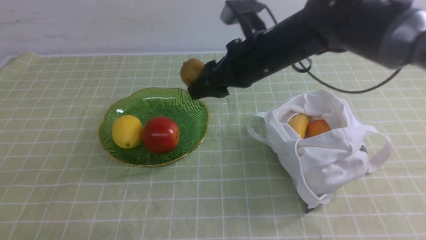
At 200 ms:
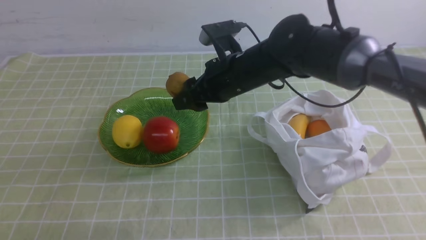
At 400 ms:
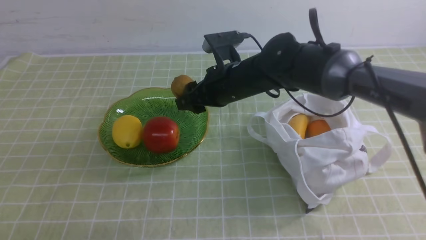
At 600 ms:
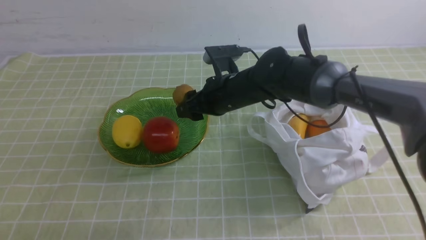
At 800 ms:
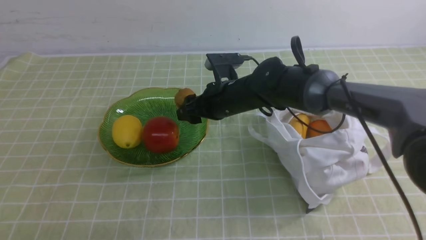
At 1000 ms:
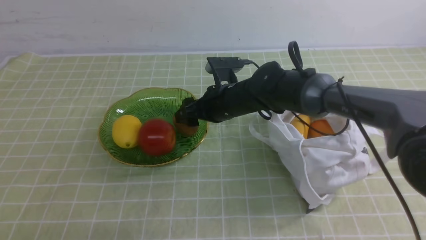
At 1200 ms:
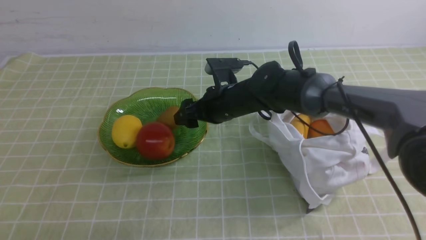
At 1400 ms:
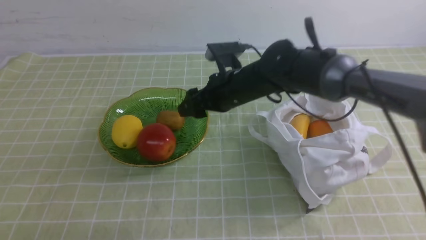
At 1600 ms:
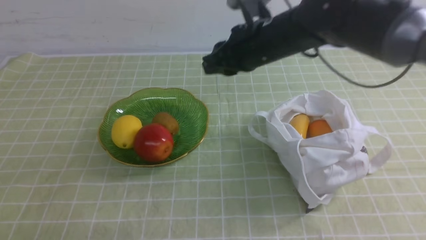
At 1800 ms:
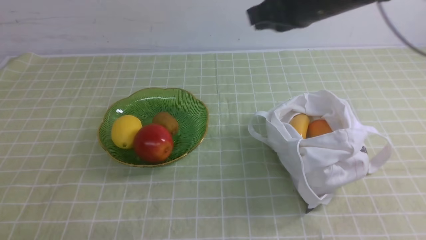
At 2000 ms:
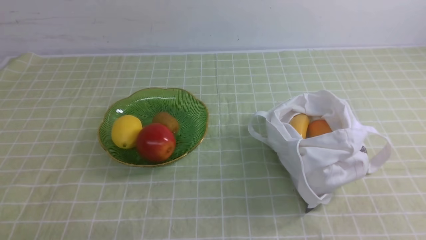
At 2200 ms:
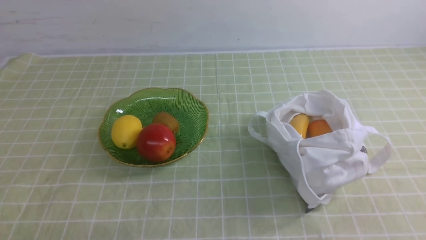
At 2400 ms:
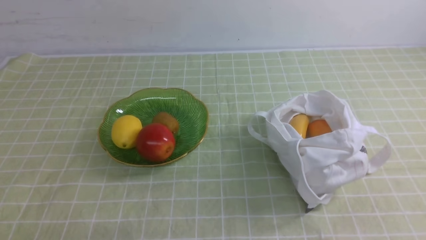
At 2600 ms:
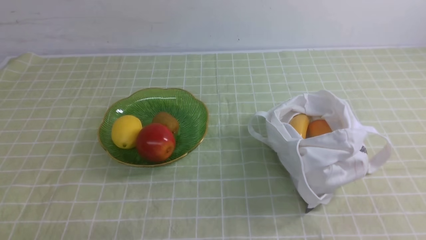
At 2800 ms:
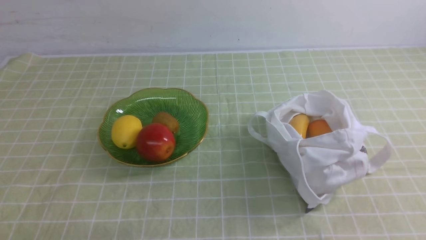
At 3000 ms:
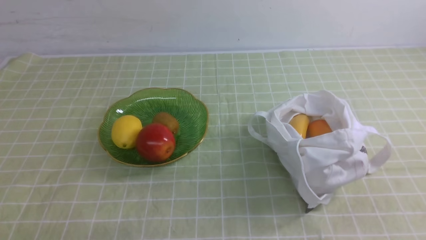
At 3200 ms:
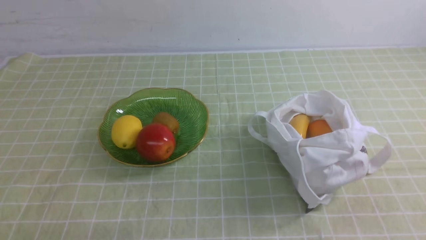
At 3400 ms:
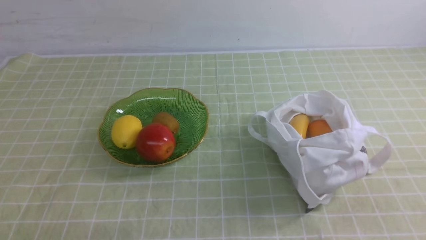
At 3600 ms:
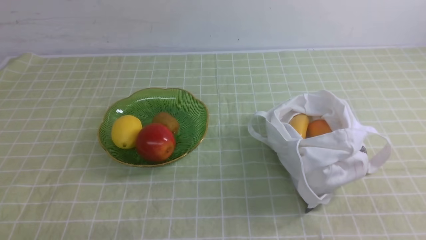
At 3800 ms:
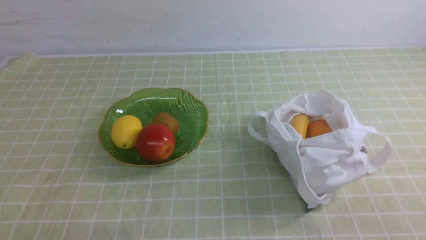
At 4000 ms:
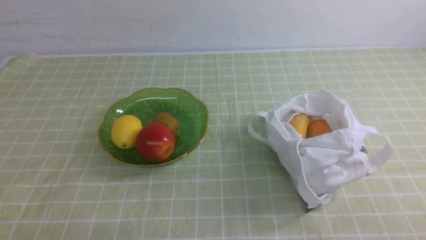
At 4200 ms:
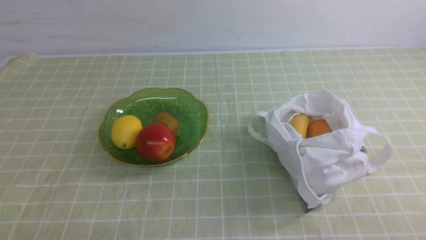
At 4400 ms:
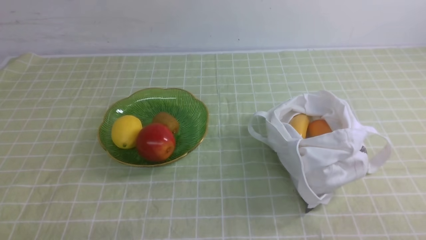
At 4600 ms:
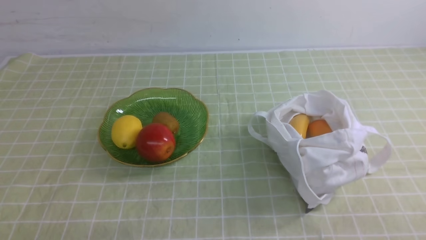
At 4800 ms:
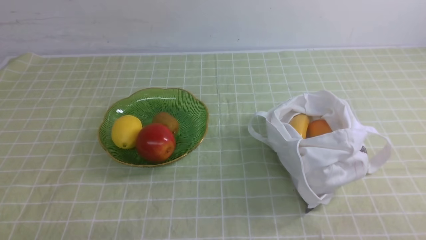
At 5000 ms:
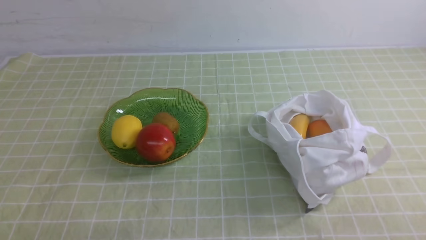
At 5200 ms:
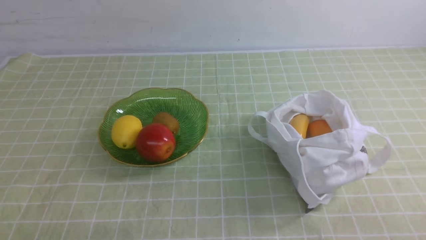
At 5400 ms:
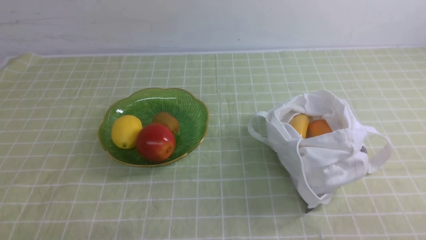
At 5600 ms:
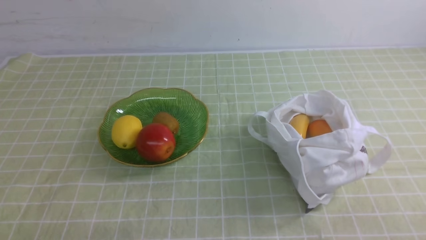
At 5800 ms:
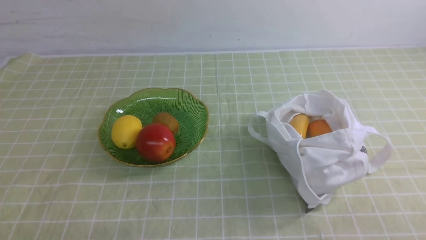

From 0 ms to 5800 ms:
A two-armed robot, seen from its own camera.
Step, from 0 ms to 1000 ms: use the right arm to put the kiwi into the empty plate on the left.
From 1400 ms to 2800 ms: The right gripper moves backward and to the right, roughly 40 cm, and closes its fingers.
From 4400 ms to 5800 ms: Neither gripper changes place.

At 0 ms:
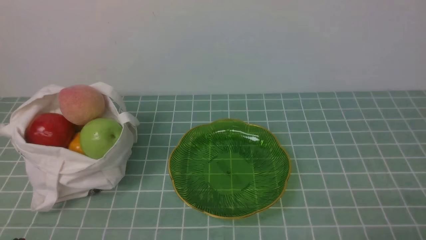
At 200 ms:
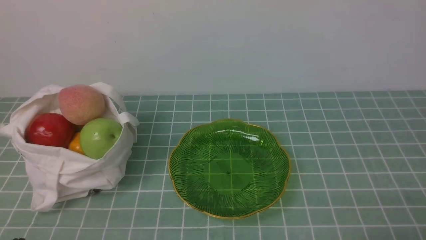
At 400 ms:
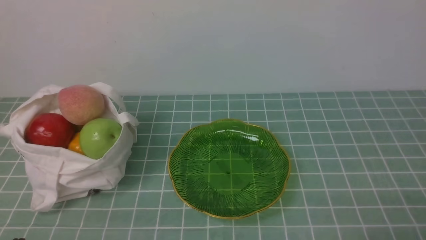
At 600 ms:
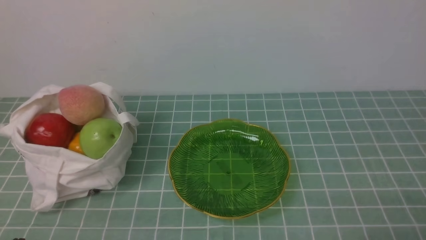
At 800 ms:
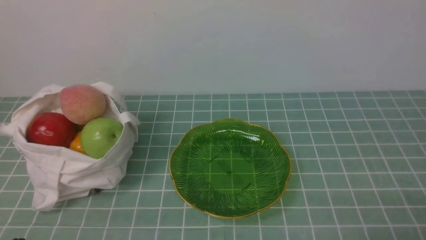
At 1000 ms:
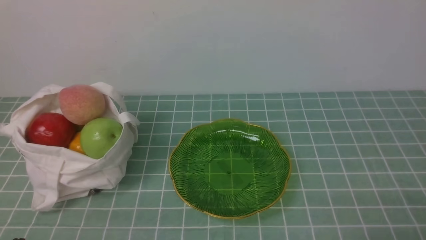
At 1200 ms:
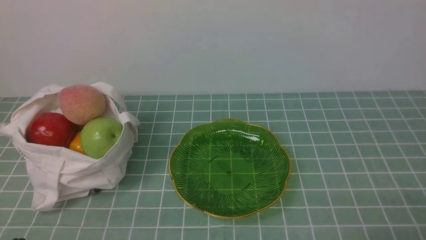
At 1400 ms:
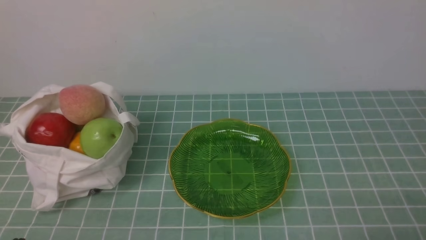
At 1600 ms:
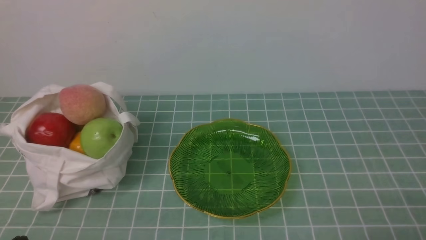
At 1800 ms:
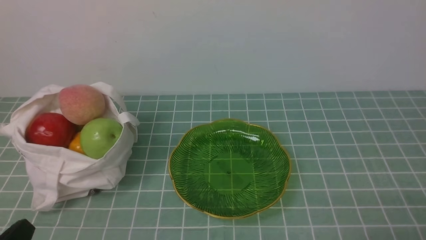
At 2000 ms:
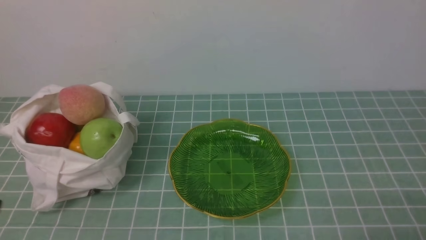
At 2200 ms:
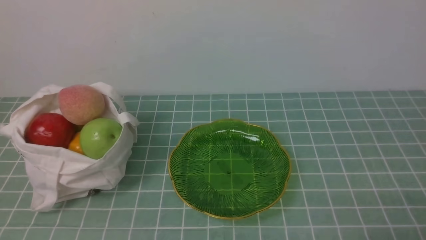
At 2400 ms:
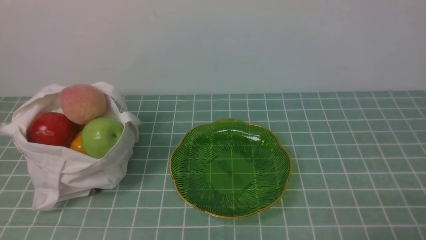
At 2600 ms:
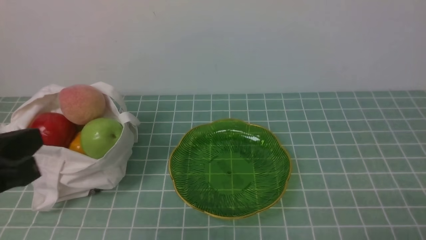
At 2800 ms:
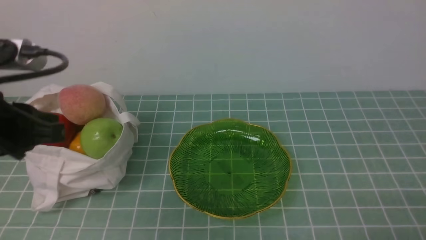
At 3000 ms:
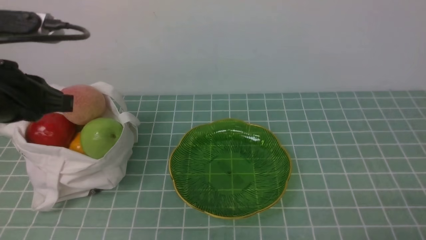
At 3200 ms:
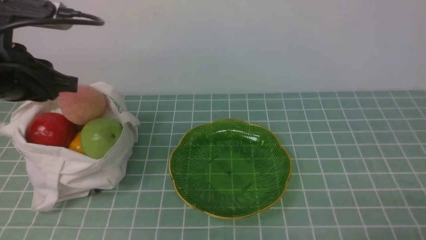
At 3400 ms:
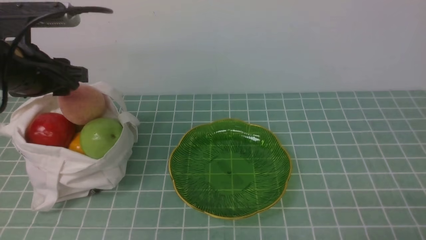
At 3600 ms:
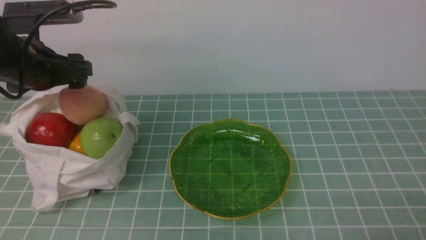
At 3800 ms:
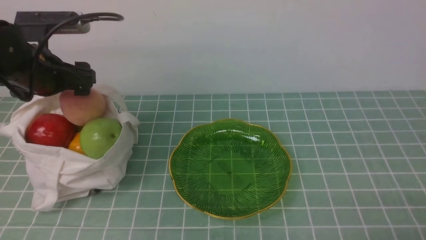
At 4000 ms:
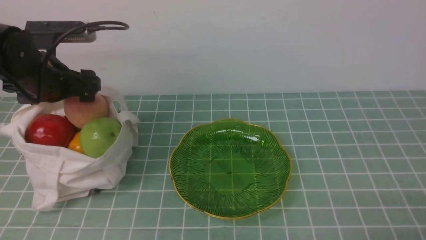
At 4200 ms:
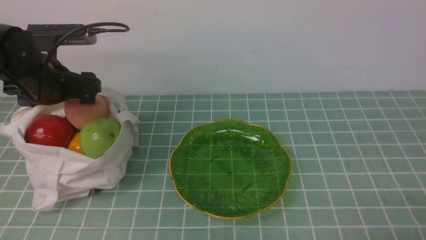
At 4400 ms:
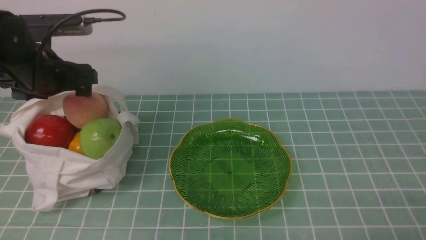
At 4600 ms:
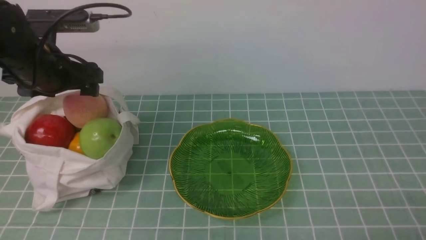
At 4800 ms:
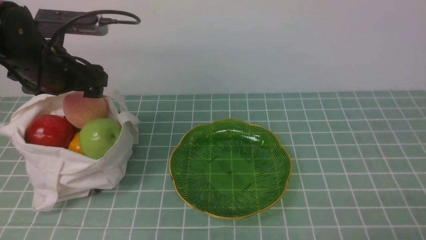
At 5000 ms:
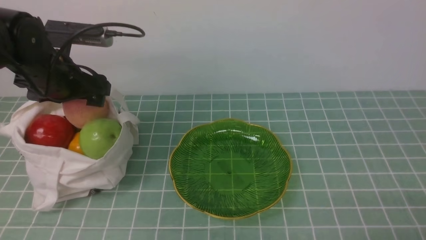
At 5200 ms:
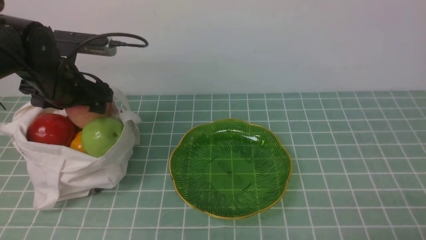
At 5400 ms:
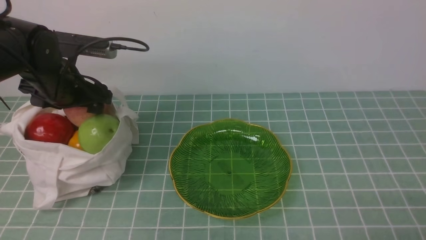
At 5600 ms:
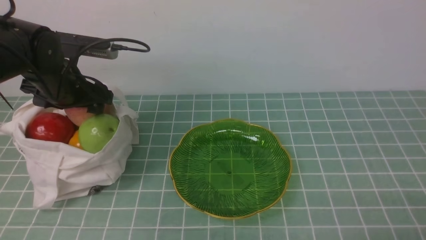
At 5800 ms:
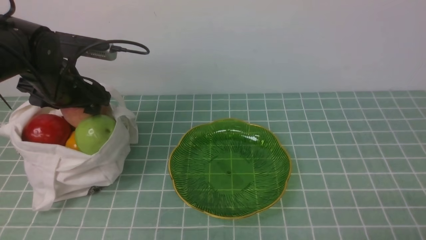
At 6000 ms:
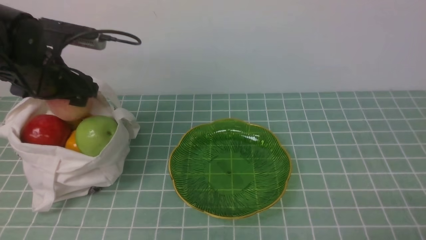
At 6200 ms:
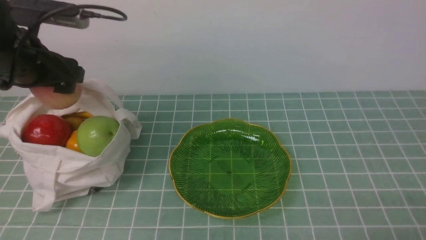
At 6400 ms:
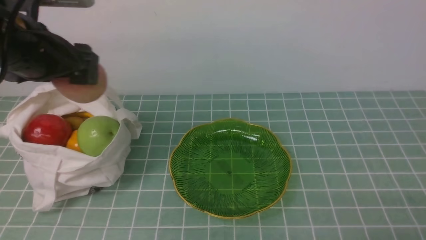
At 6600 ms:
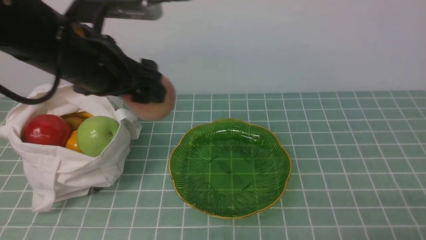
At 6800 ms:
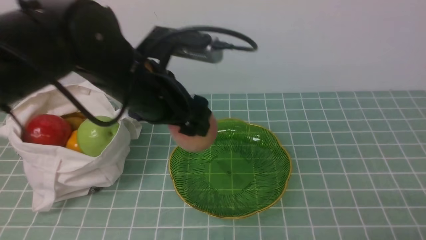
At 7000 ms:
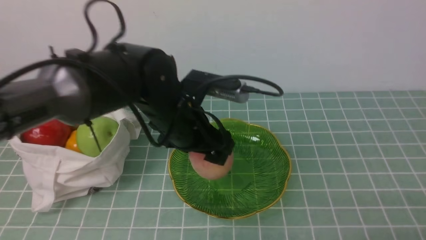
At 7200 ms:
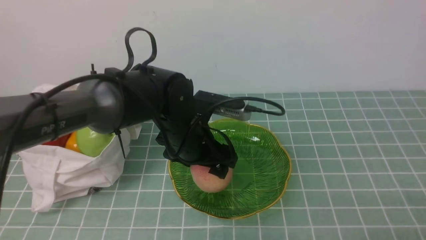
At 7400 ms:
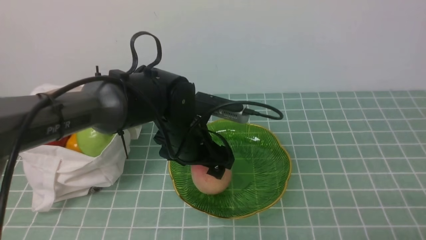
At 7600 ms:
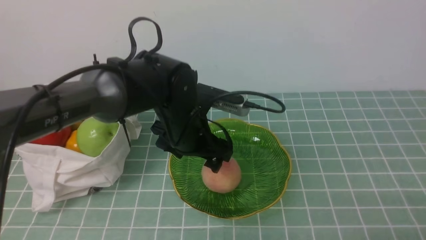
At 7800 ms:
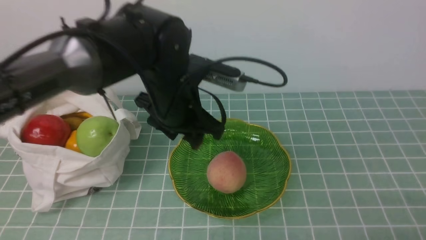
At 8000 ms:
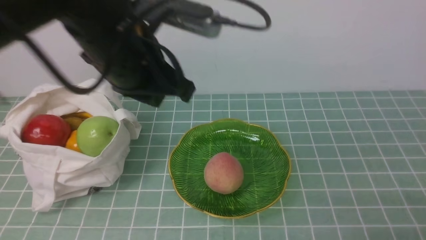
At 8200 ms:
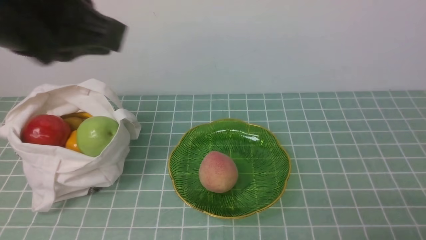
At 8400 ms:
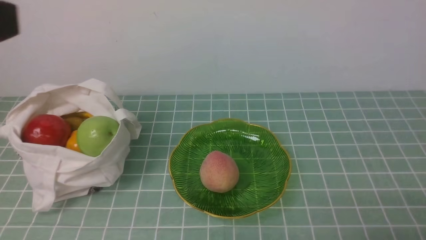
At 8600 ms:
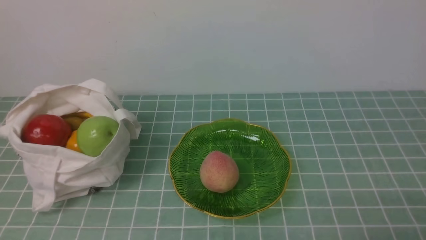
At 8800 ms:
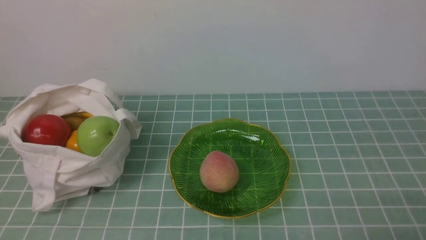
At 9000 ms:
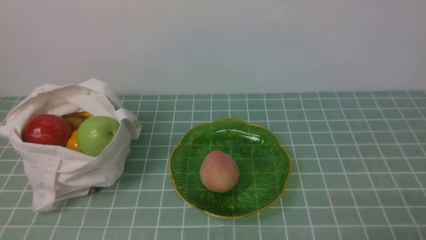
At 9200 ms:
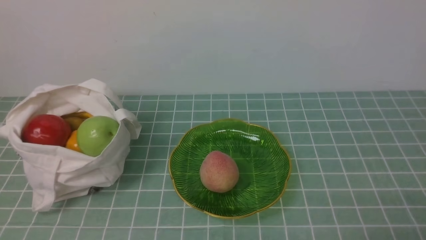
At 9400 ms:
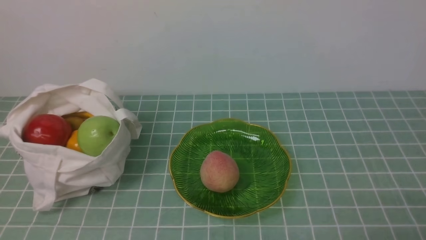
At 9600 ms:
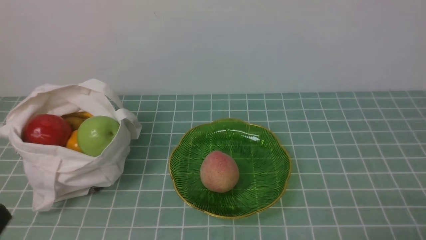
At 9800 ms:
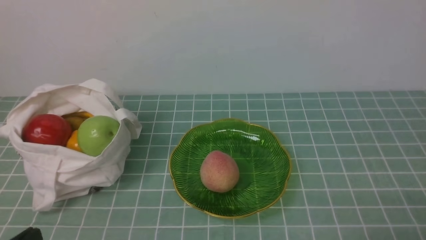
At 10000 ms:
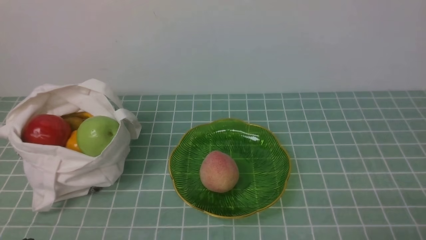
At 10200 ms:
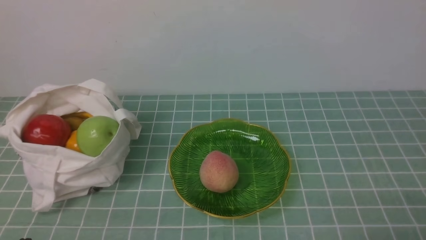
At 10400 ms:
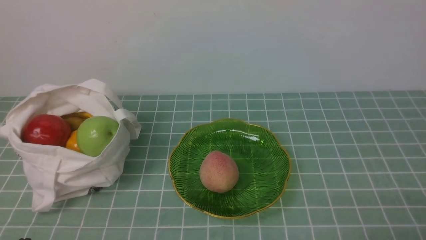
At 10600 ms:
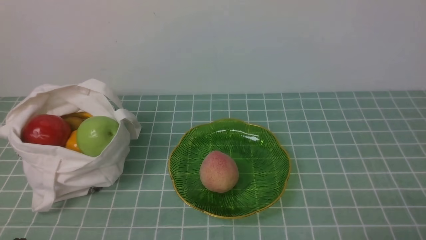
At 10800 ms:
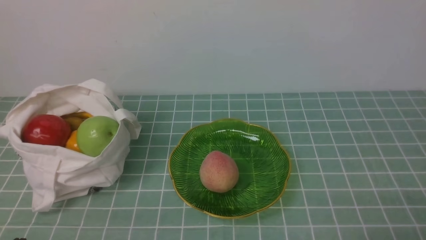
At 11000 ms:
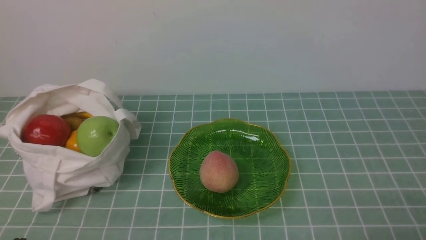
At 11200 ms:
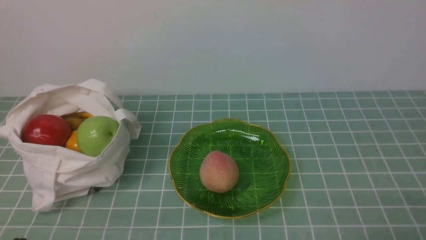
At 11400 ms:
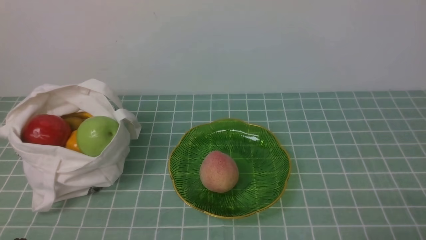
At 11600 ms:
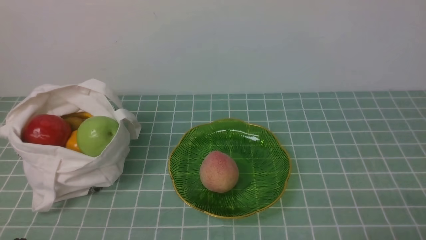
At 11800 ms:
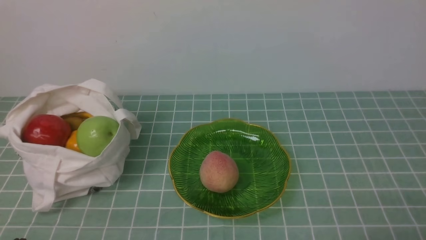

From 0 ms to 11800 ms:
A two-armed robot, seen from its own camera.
Step, from 0 ms to 6000 ms: use the left arm to grab a peach from the bag.
Step, from 6200 ms to 7600 ms: use the left arm to put the peach into the empty plate on the right.
From 0 ms to 1400 ms: Both grippers stay about where they are.
From 1400 ms to 3000 ms: The left gripper shifts approximately 25 cm forward and upward.
From 3000 ms to 4400 ms: The left gripper goes some 15 cm forward and downward, and opens.
From 4400 ms to 6000 ms: The grippers stay close to where they were, moving slightly.
From 6000 ms to 7400 ms: The left gripper moves to the right and downward, approximately 20 cm.
From 7400 ms to 8800 ms: The left gripper moves backward, to the left and upward, approximately 40 cm, and closes up.
From 10400 ms to 11800 ms: The two grippers keep their place.
